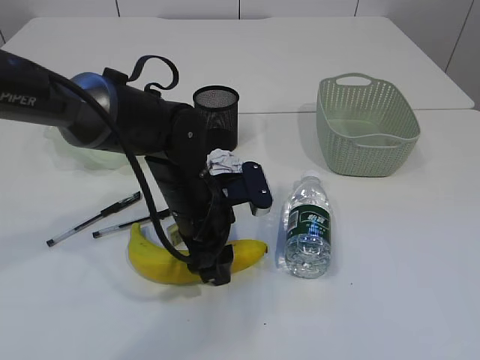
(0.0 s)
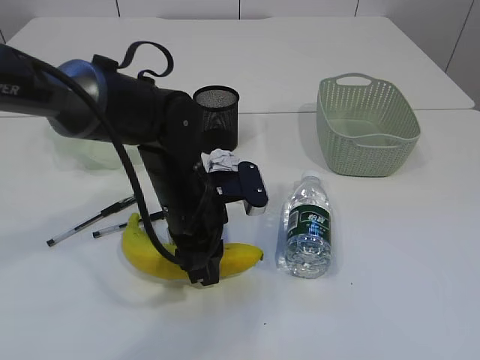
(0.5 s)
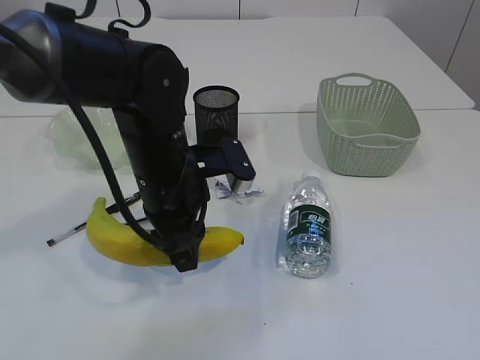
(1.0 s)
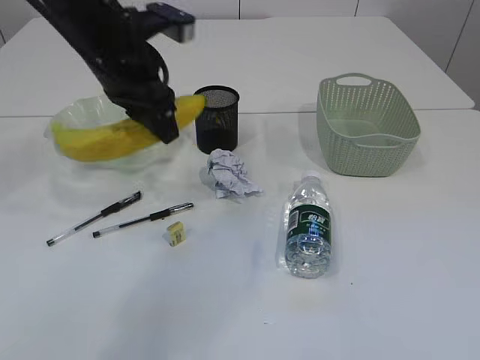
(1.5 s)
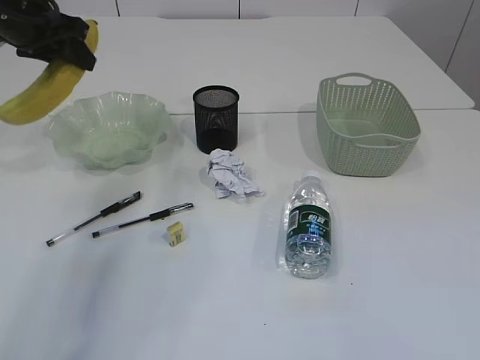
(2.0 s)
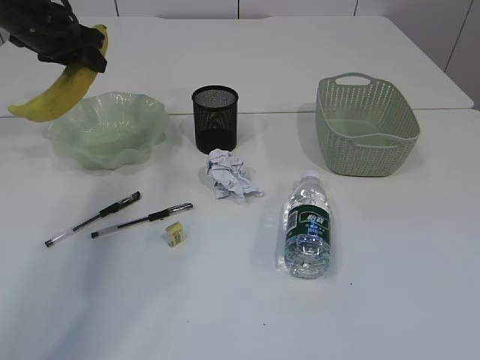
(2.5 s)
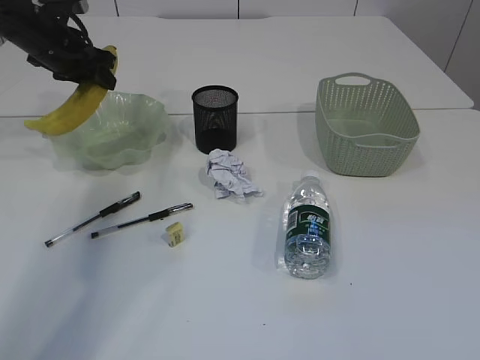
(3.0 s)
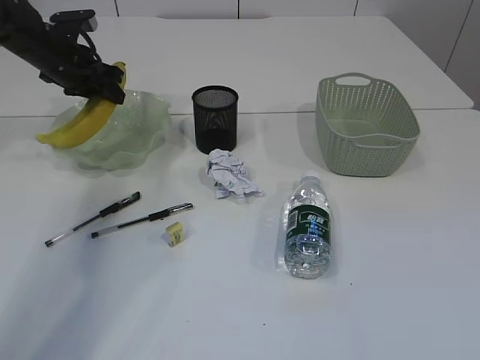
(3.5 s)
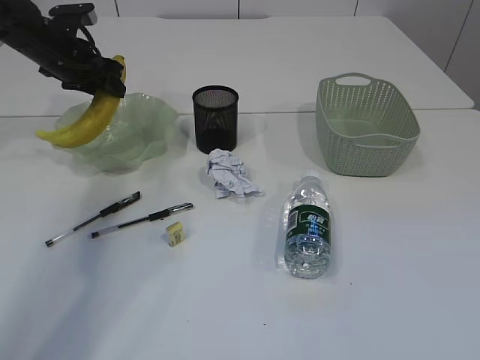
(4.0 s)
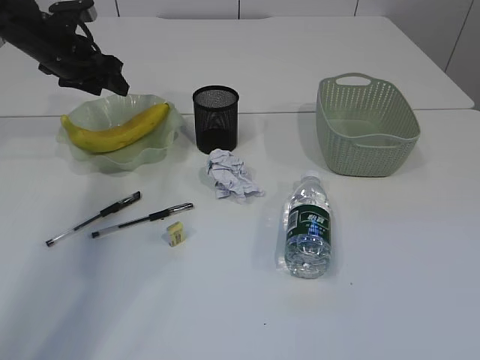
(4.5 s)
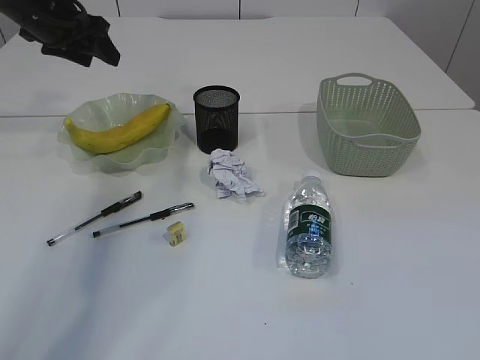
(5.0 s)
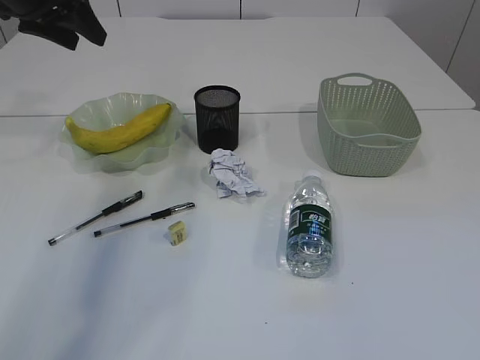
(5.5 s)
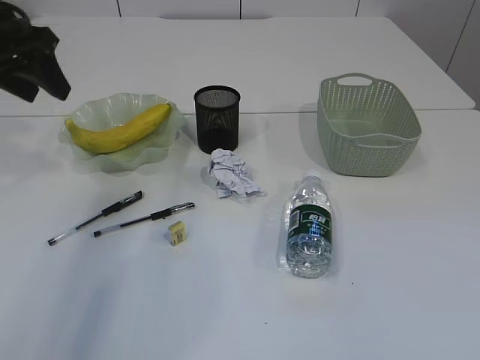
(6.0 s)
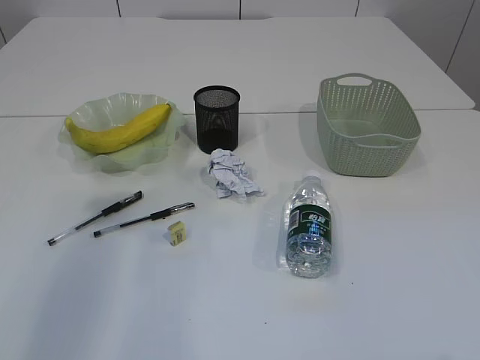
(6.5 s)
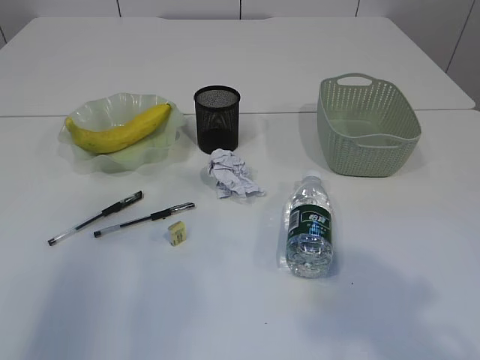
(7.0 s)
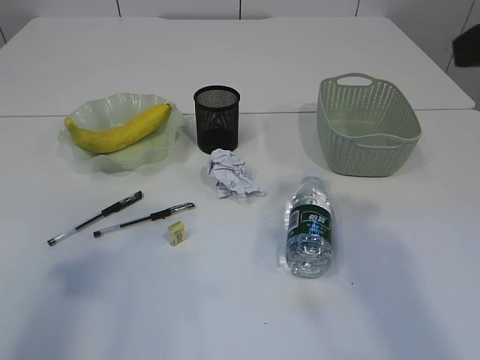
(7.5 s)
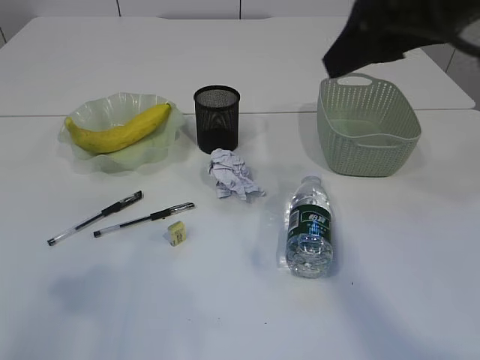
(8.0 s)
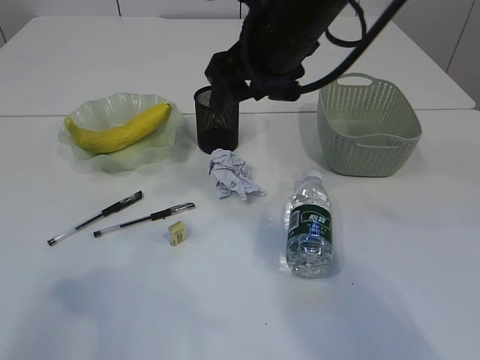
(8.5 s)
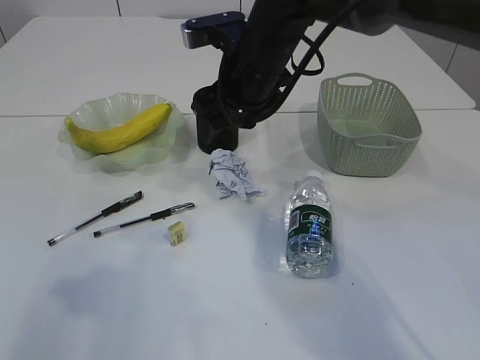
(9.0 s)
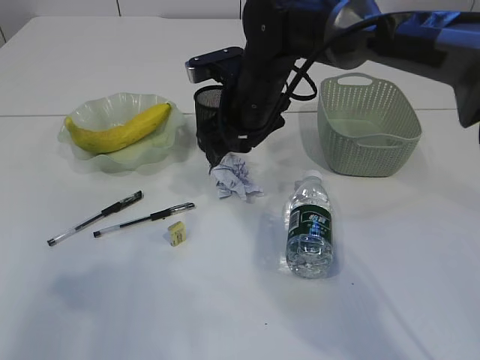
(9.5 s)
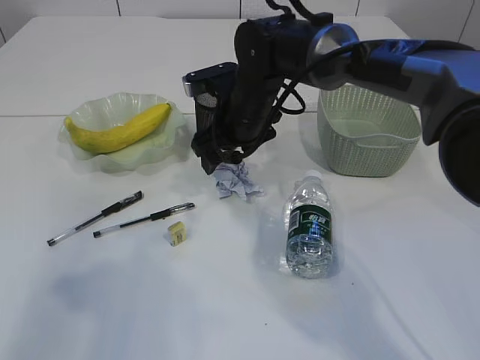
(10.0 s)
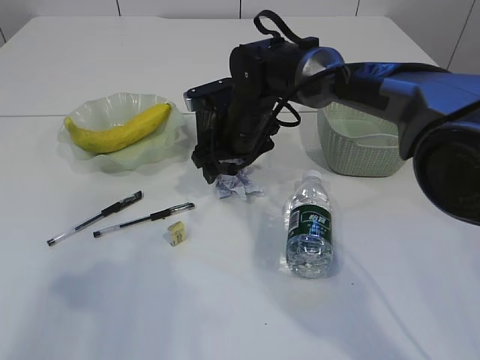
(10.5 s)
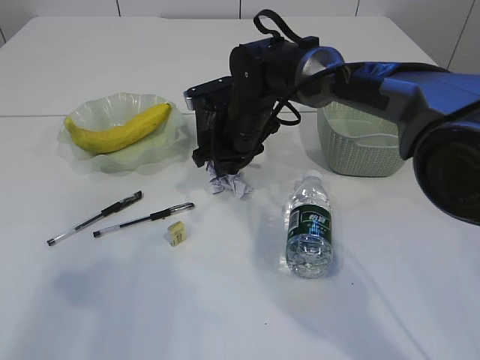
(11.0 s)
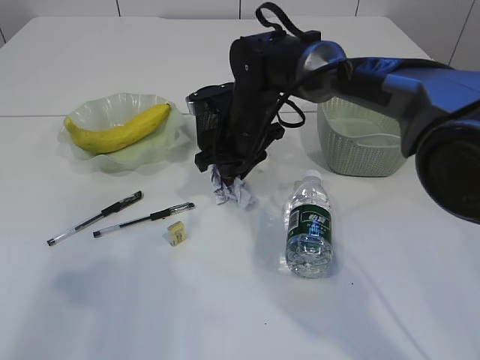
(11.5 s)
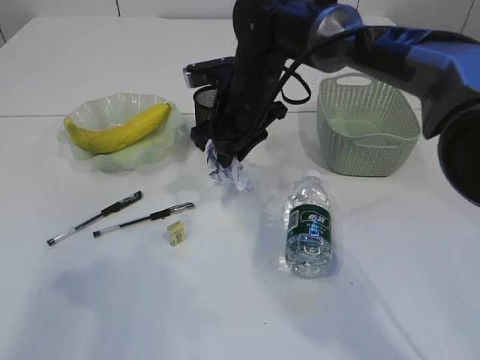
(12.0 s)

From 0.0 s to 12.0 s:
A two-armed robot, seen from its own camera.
Step, from 1.5 s to 4.5 s: Place the banana in the plate.
From 0.0 s to 2.0 s: The left gripper goes approximately 30 cm to the left, upward and forward, and closes its fingers.
From 2.0 s to 4.0 s: The left gripper travels downward and forward by about 10 cm.
From 4.0 s to 6.0 s: The left gripper moves backward and upward, about 15 cm.
From 6.0 s to 8.0 s: The right gripper is displaced forward by roughly 30 cm, while the left gripper moves backward, some 25 cm.
From 8.0 s to 10.0 s: The right gripper goes about 30 cm downward, forward and to the left.
From 10.0 s to 12.0 s: The right gripper closes.

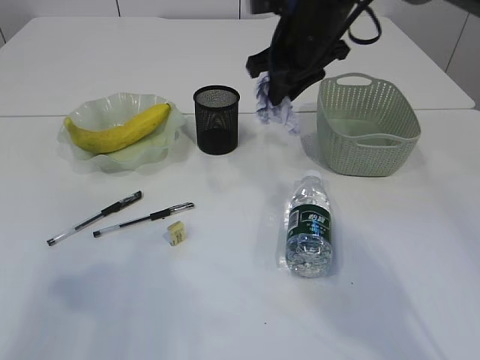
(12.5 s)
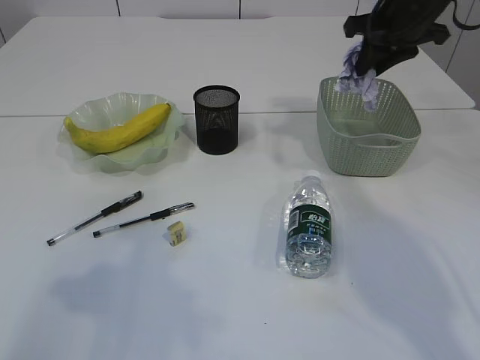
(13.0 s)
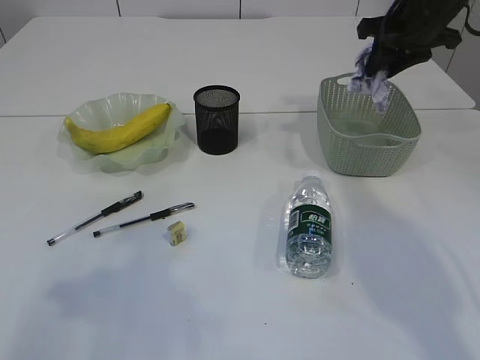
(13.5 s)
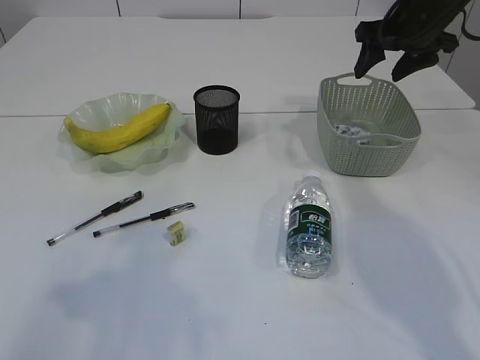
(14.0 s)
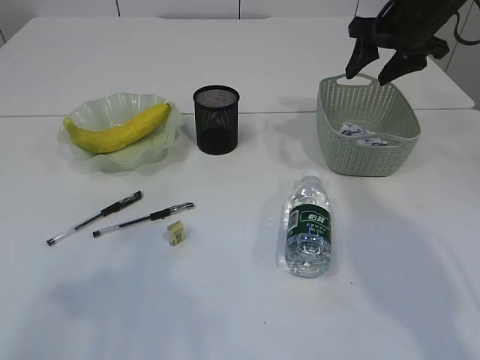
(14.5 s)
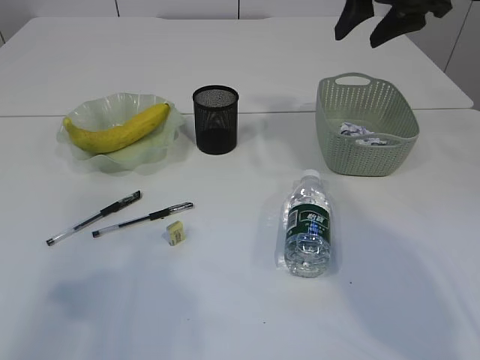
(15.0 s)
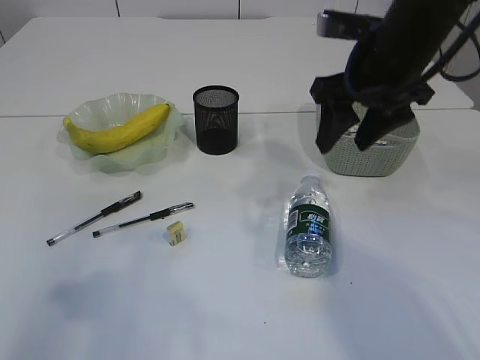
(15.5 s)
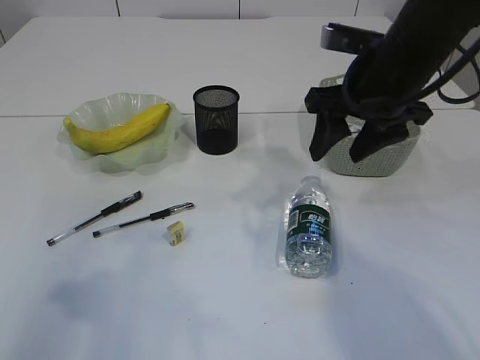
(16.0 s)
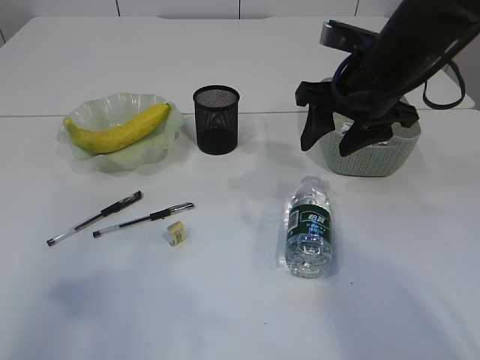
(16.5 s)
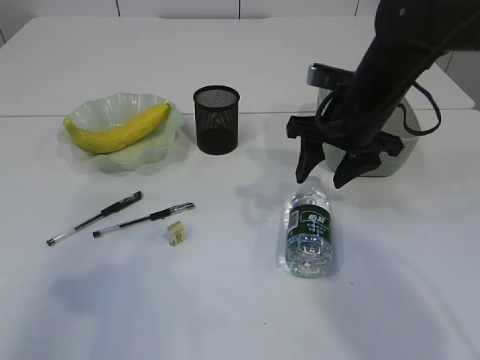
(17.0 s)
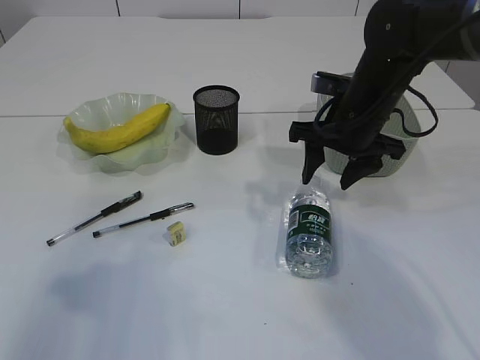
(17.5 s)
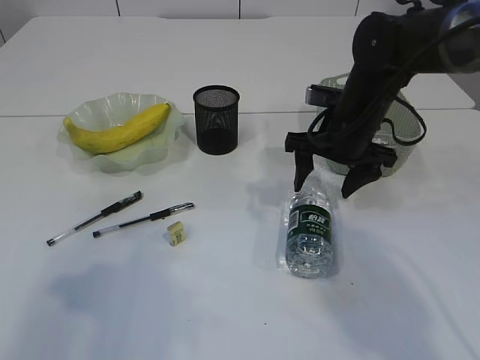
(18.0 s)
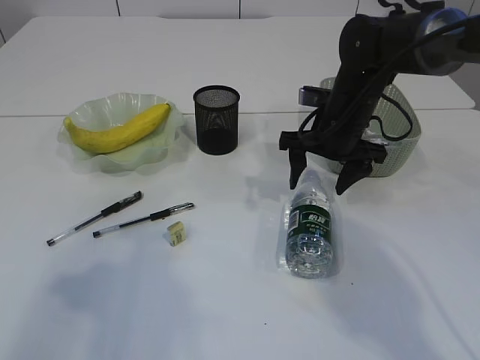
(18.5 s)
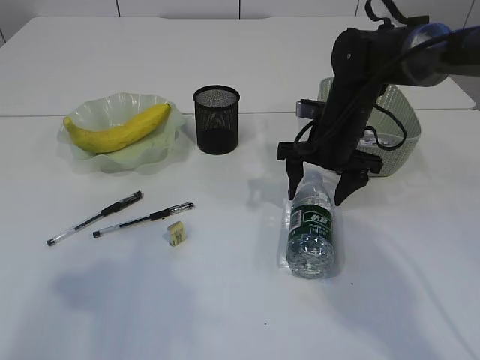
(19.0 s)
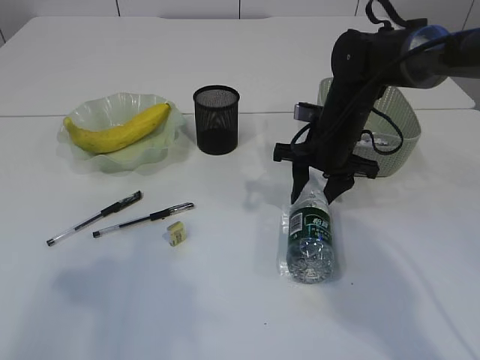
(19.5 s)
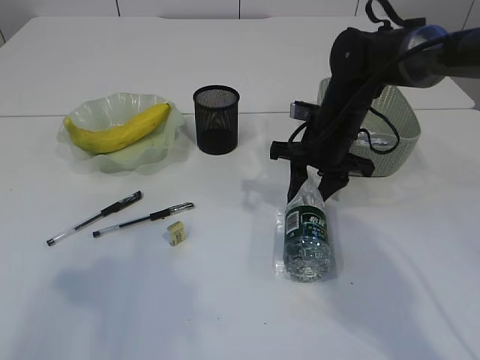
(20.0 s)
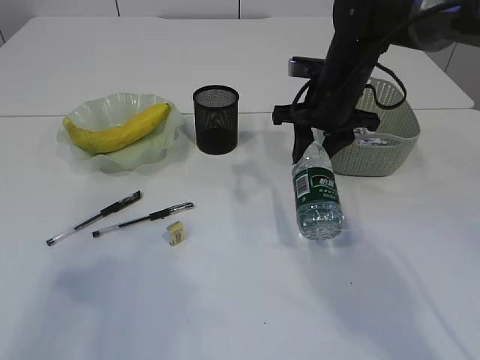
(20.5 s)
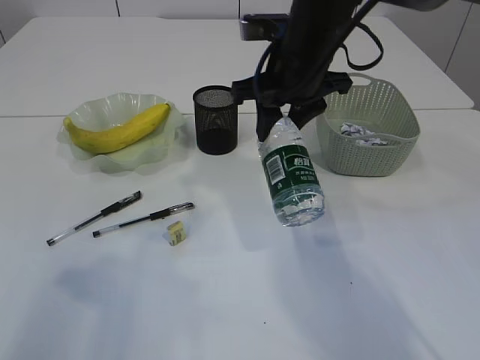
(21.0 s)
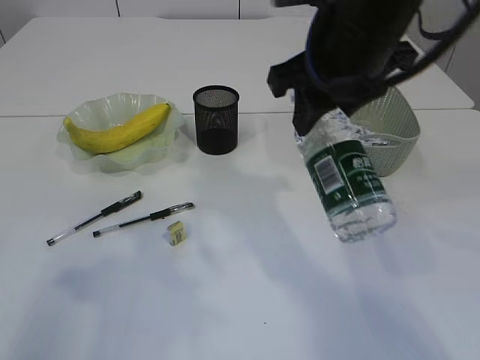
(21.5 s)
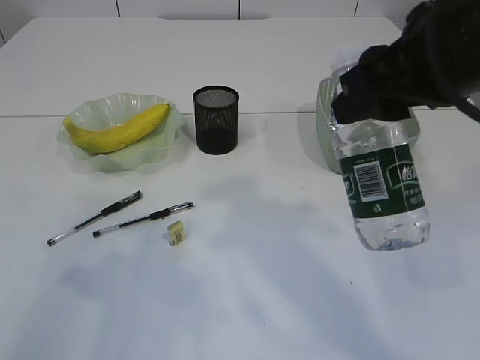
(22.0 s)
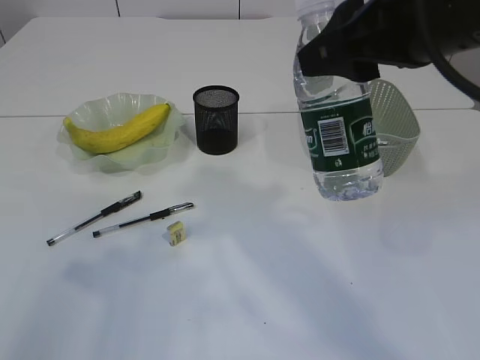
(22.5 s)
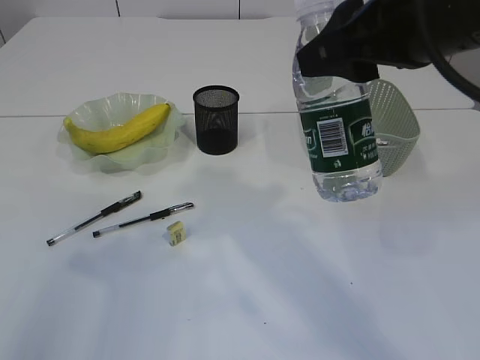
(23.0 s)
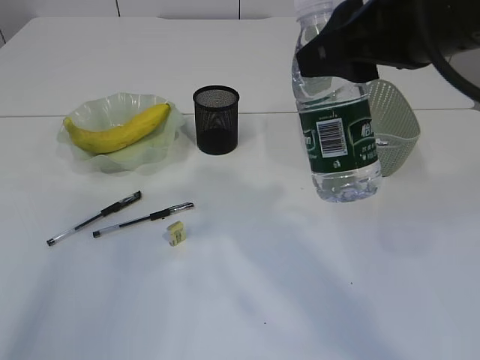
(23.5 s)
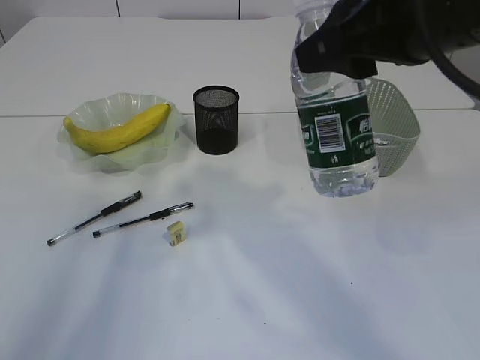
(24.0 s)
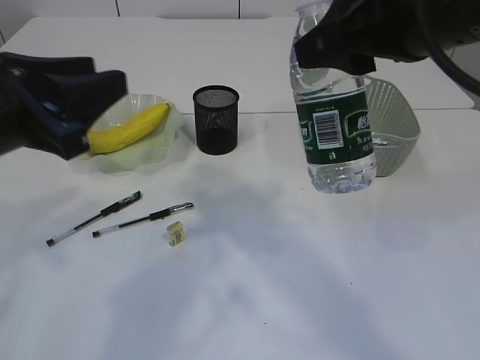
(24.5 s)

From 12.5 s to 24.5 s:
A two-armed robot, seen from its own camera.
Step, from 12.5 s to 14.5 s: Place the waste paper in the basket.
Step, from 15.0 s to 20.5 s: Pick up the bottle with the right arm.
From 12.5 s to 14.5 s: The right gripper travels to the right by some 15 cm, and opens.
From 14.5 s to 16.5 s: The right gripper shifts roughly 15 cm backward and to the left.
From 16.5 s to 18.5 s: The right gripper is displaced downward and forward by some 10 cm, and opens its fingers.
From 18.5 s to 20.5 s: The right gripper closes.
From 20.5 s to 22.5 s: The right gripper is displaced backward and upward by about 25 cm.
From 22.5 s to 24.5 s: The left gripper heads to the right and forward, covering about 10 cm.

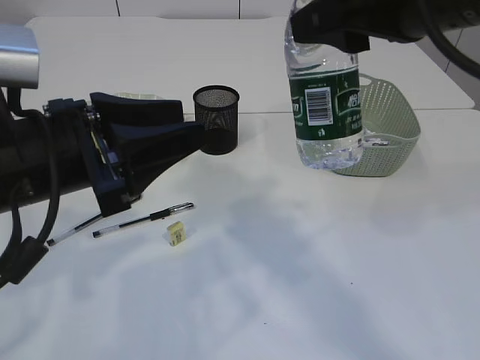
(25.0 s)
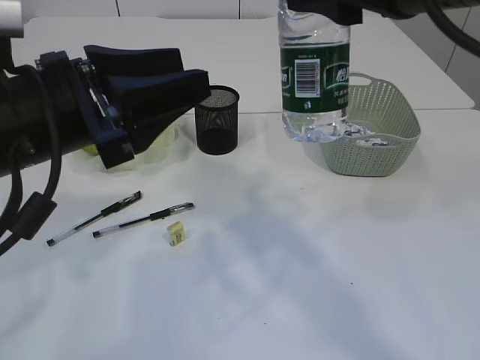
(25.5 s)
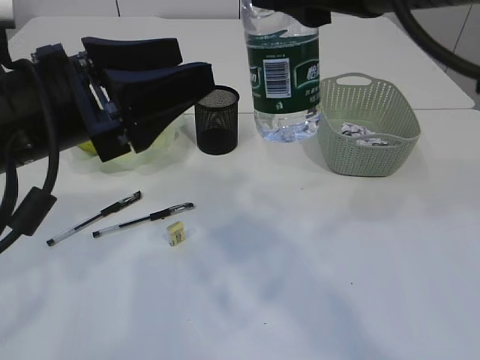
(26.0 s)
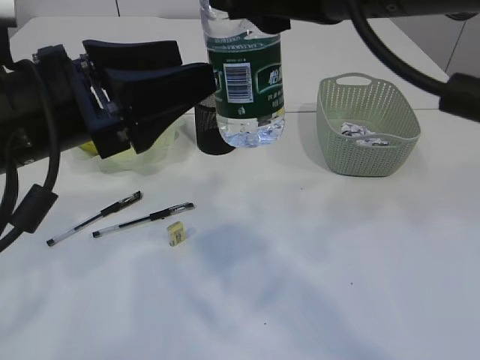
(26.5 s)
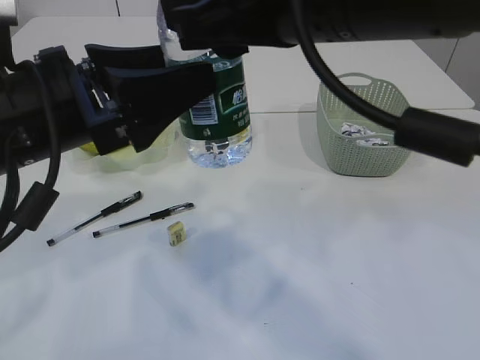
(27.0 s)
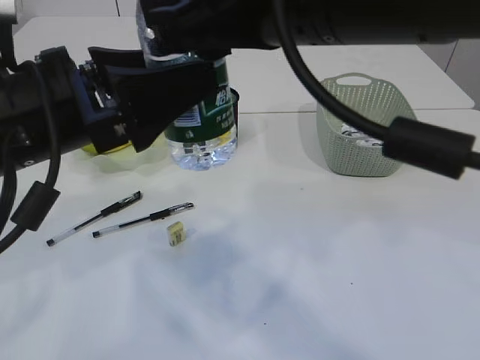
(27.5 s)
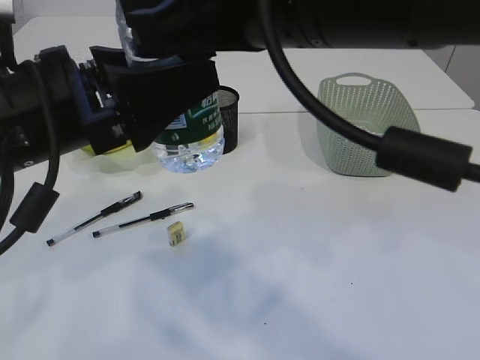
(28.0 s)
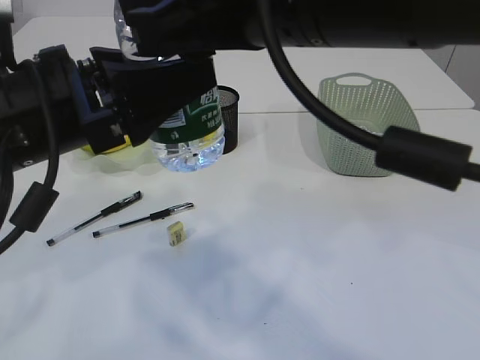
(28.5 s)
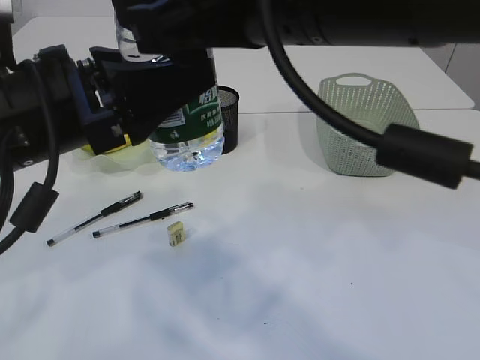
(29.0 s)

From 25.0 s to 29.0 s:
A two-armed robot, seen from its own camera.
From 25.0 s to 27.0 s: The left gripper opens up, while the right gripper heads to the left, covering roughly 5 cm.
From 27.0 s to 29.0 s: The left gripper closes.
